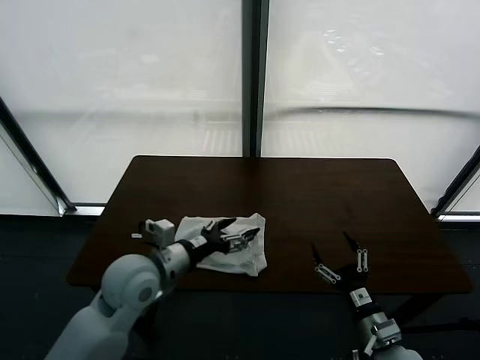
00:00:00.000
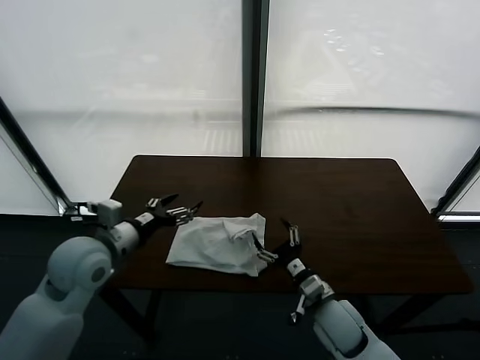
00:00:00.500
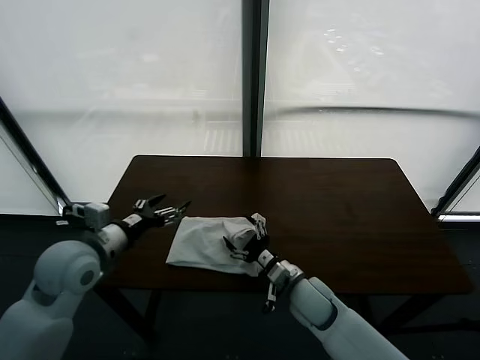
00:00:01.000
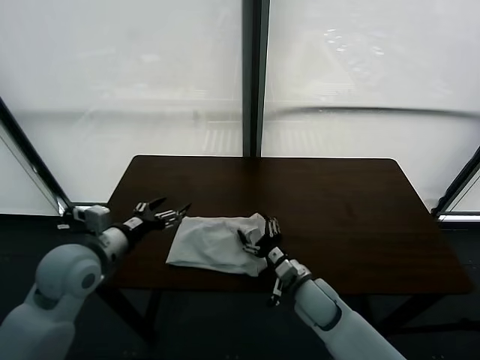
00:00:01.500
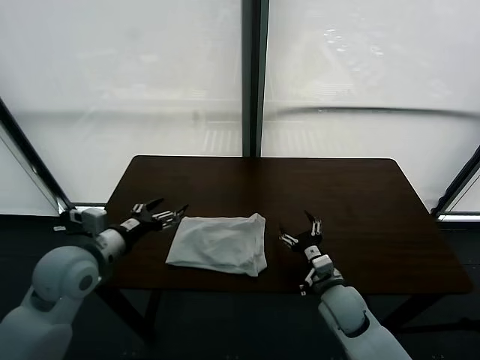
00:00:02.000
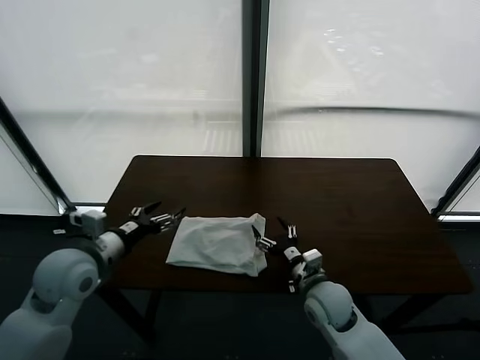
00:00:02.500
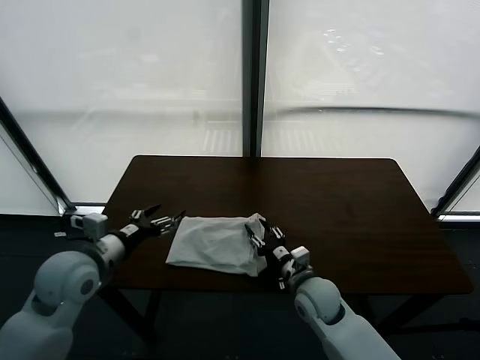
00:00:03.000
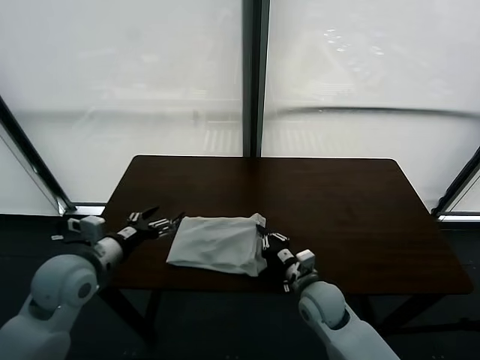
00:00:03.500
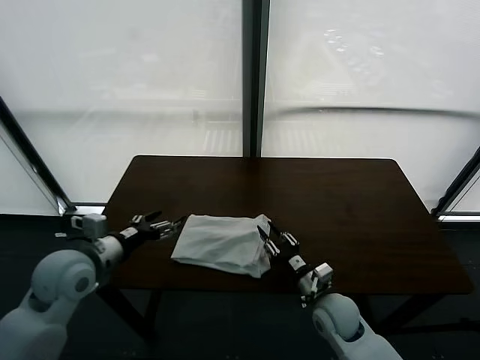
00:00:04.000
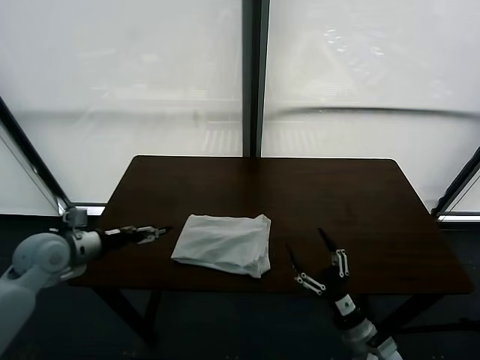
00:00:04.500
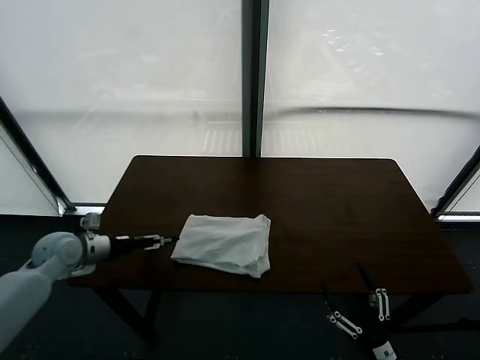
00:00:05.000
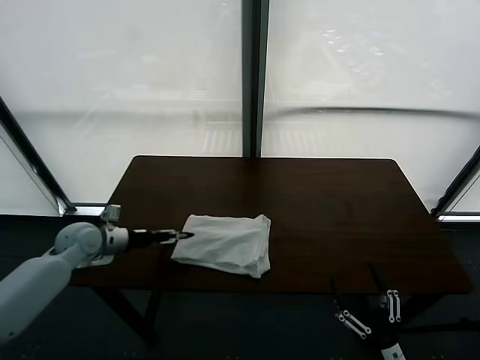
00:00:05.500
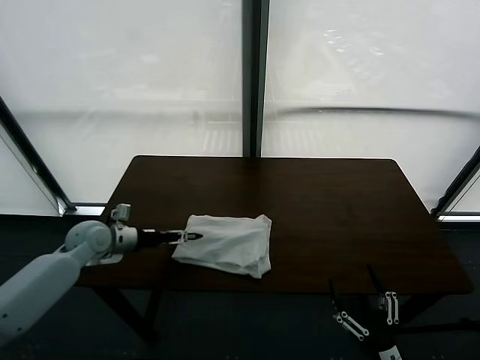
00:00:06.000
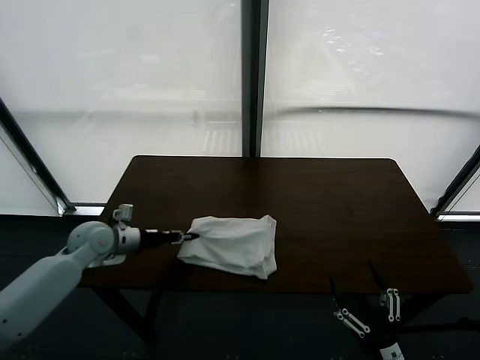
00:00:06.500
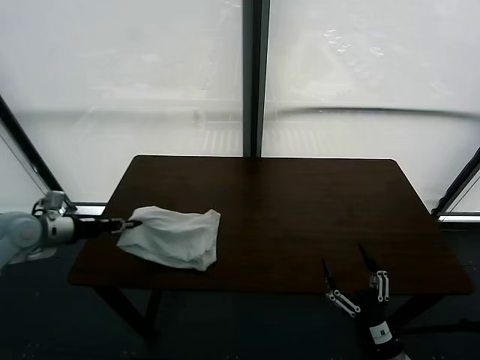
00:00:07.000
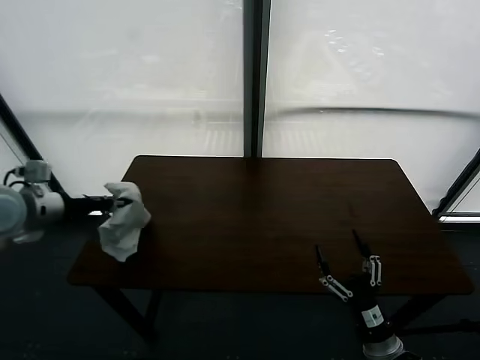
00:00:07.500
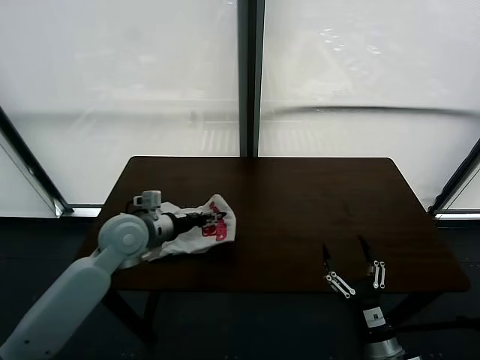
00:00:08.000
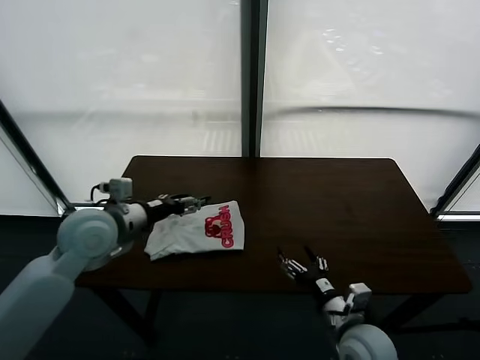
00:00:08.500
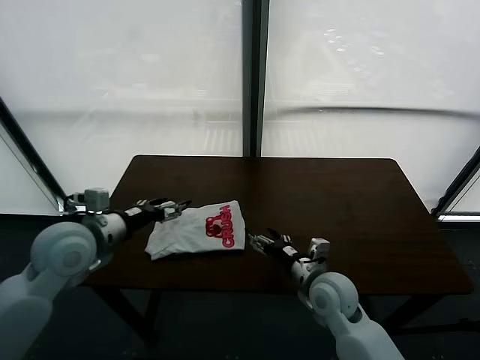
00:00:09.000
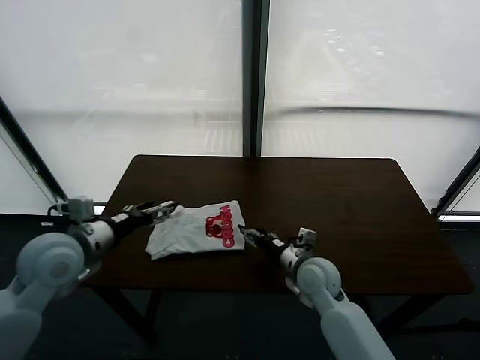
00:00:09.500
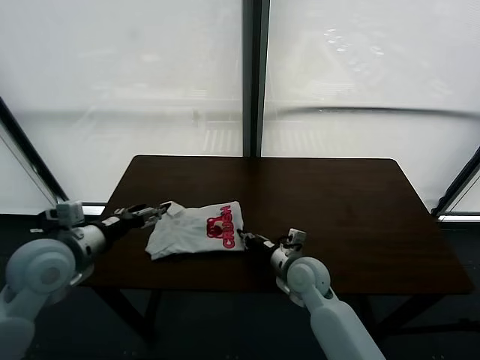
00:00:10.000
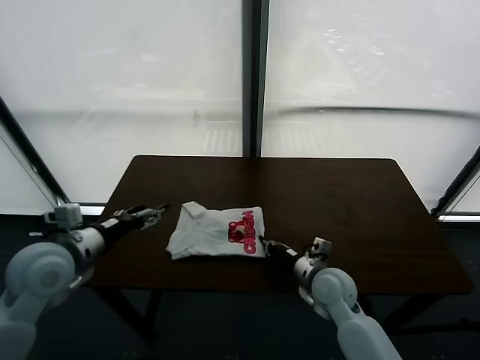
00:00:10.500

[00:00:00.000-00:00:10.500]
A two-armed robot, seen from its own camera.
Task of the whole recording: fold and organize the clothes.
Step, 00:00:00.000 to 00:00:08.000: Flip the folded clothes over with left gripper.
00:00:00.000 to 00:00:02.000: The right gripper shifts approximately 15 cm forward and to the left. Meanwhile the left gripper is displaced to the left by about 10 cm.
00:00:02.000 to 00:00:04.000: The right gripper closes.
00:00:04.000 to 00:00:06.500: The right gripper shifts roughly 25 cm backward and to the right, and opens its fingers; the left gripper is displaced forward and downward by approximately 15 cm, and closes up.
00:00:06.500 to 00:00:08.500: The right gripper travels forward, to the left and upward by some 15 cm. Meanwhile the left gripper moves up and down over roughly 20 cm, changing direction 2 times, and opens up.
00:00:08.500 to 00:00:10.500: The left gripper is displaced backward and to the left by approximately 10 cm; the right gripper heads forward, covering roughly 15 cm, and closes.

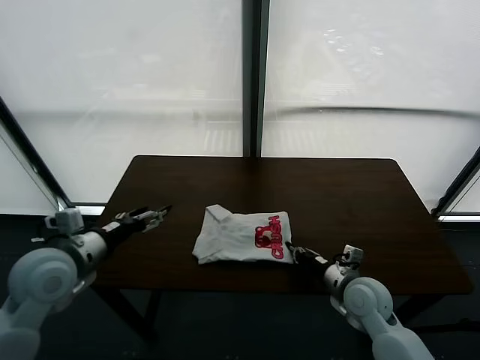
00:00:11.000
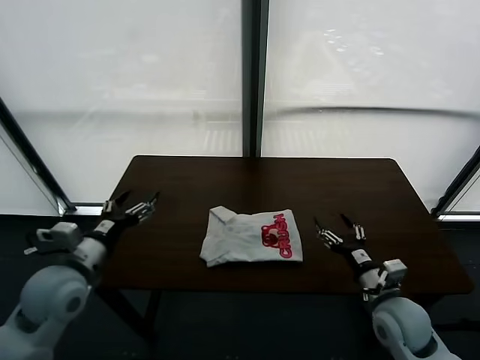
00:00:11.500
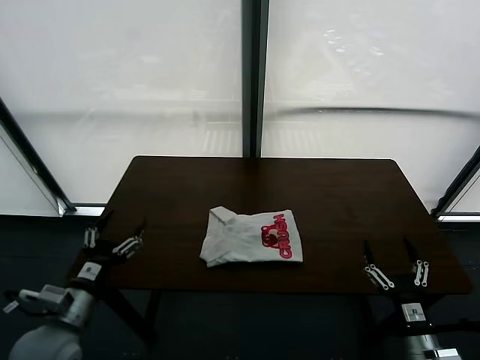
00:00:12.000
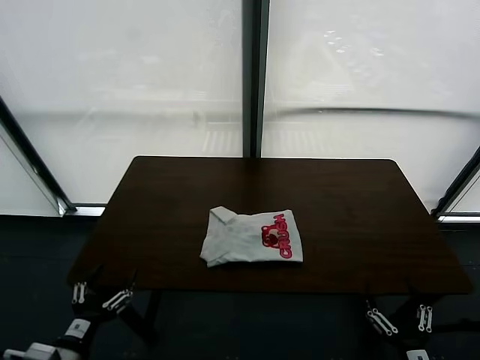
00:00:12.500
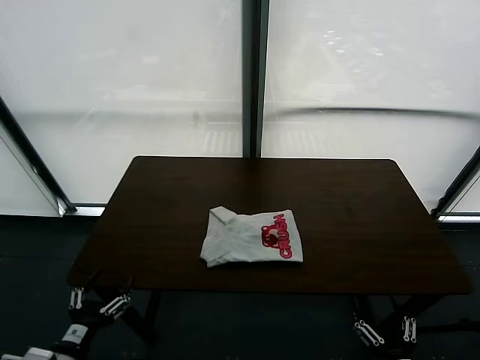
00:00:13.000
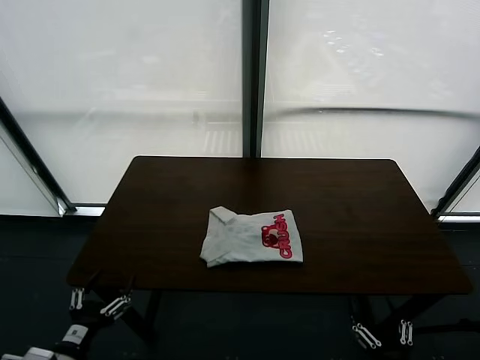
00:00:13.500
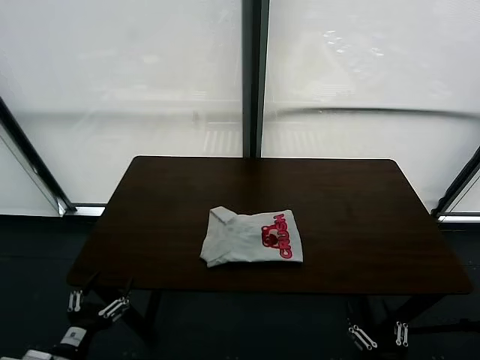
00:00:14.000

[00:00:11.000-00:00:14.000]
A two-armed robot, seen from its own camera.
Task of the whole recording: fold and organize the clothes.
00:00:11.000 to 00:00:12.500: The right gripper heads backward, covering some 25 cm, and opens its fingers, while the left gripper is displaced backward and downward by roughly 20 cm.
00:00:12.500 to 00:00:14.000: The grippers stay close to where they were, moving slightly.
